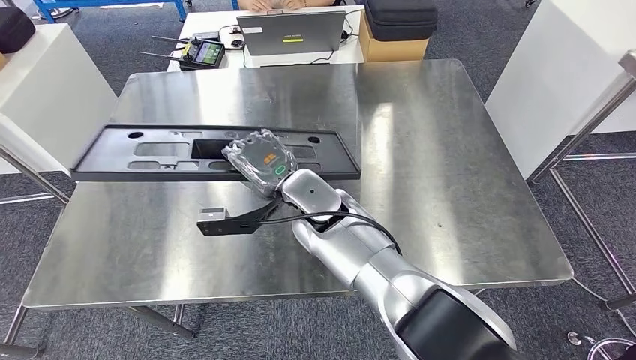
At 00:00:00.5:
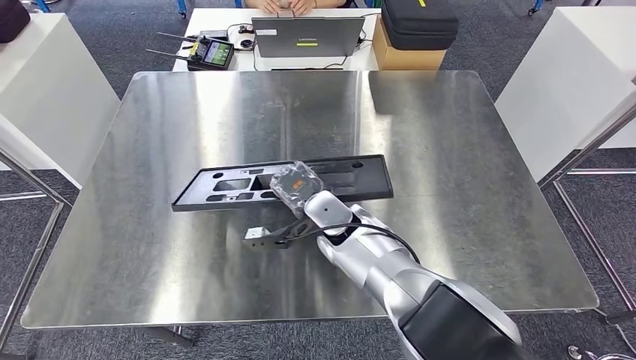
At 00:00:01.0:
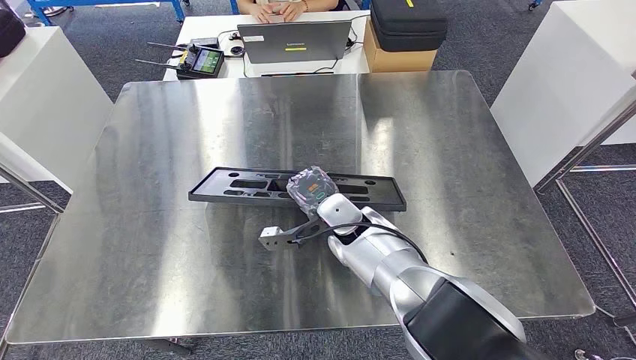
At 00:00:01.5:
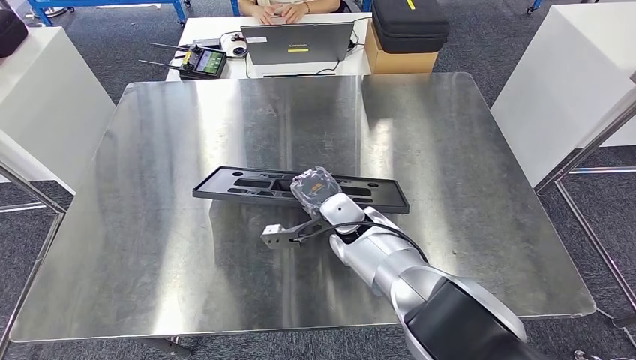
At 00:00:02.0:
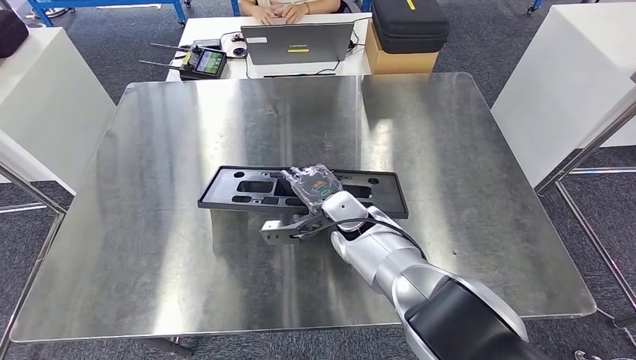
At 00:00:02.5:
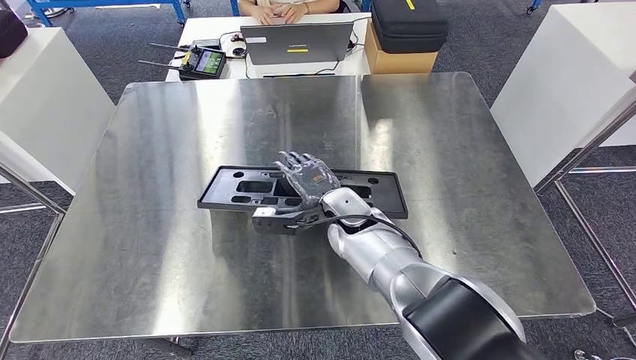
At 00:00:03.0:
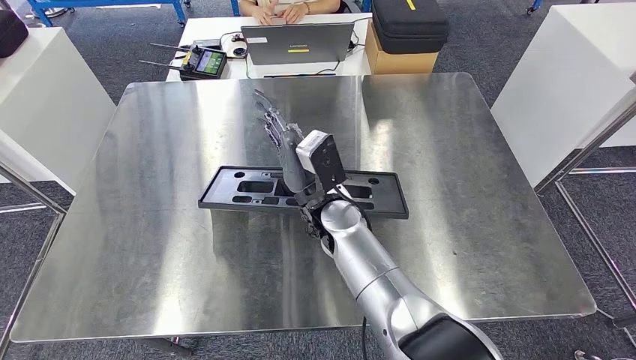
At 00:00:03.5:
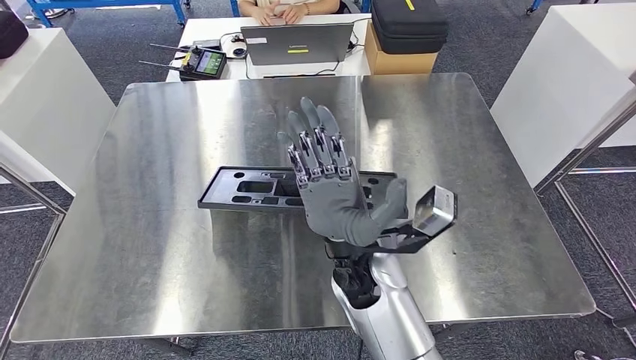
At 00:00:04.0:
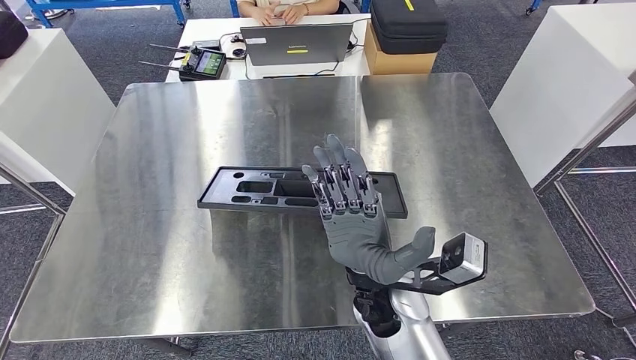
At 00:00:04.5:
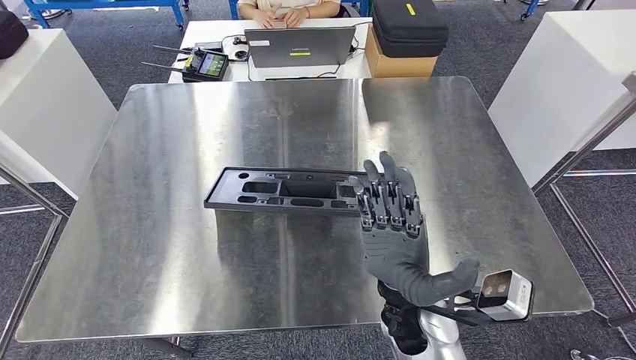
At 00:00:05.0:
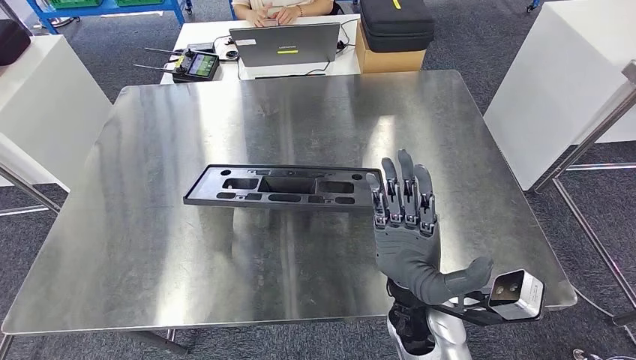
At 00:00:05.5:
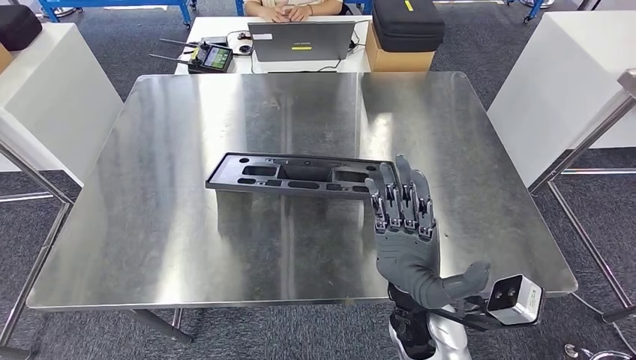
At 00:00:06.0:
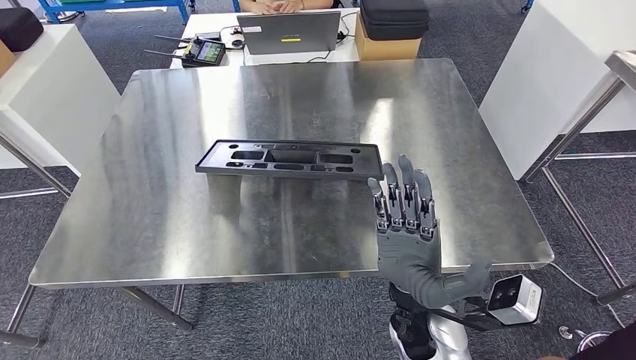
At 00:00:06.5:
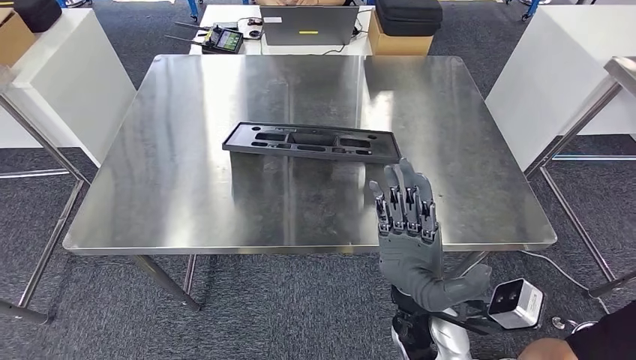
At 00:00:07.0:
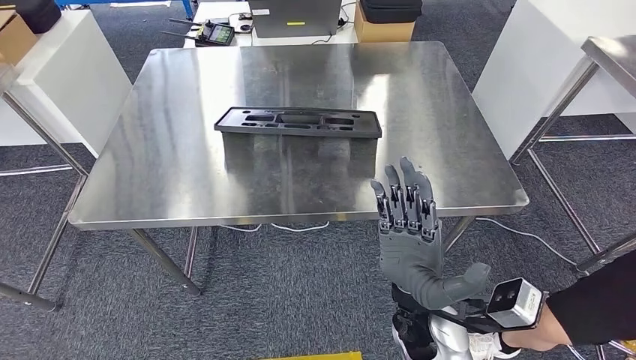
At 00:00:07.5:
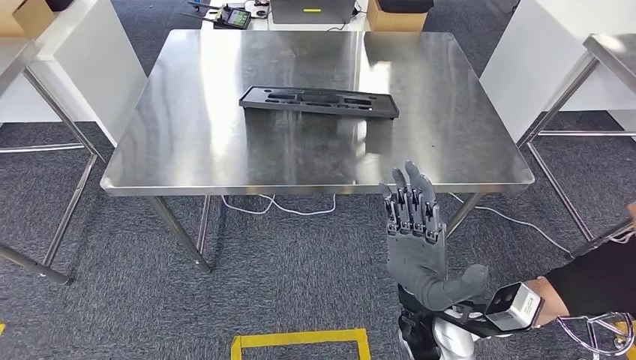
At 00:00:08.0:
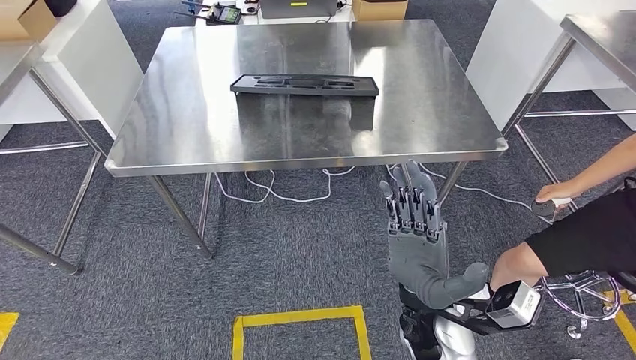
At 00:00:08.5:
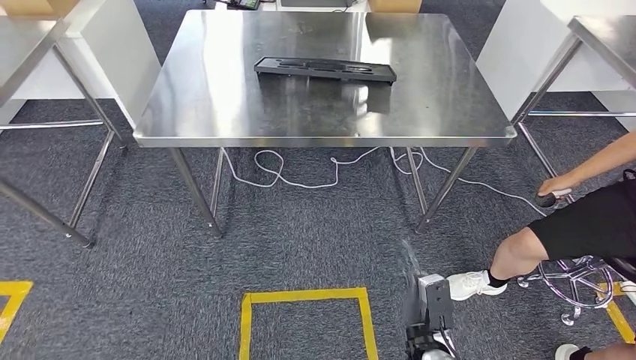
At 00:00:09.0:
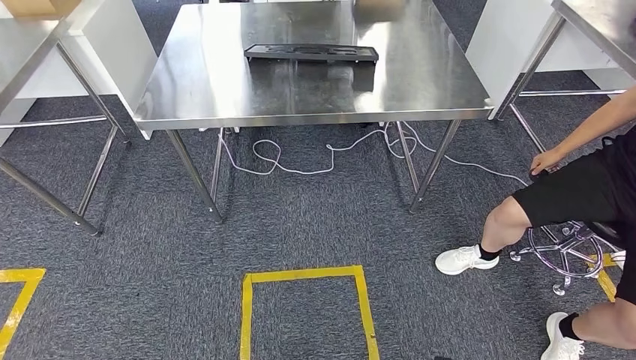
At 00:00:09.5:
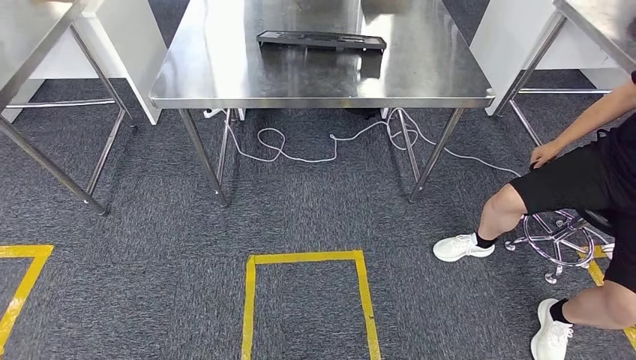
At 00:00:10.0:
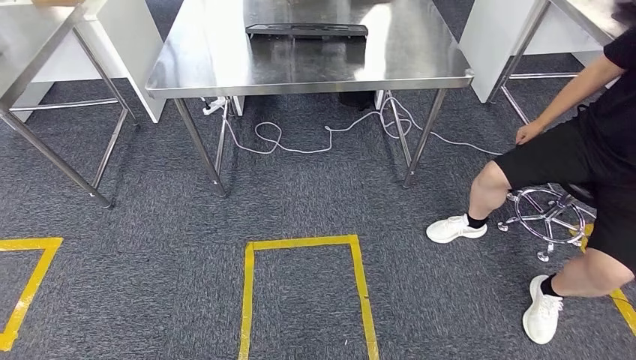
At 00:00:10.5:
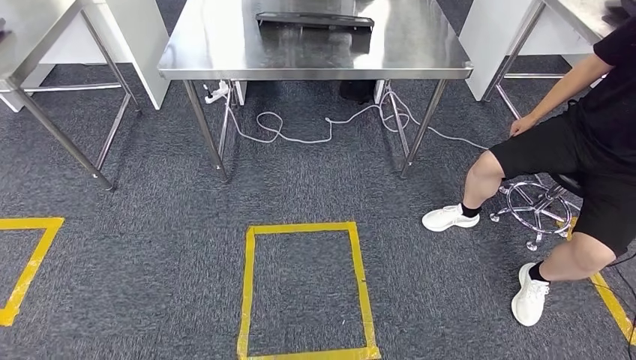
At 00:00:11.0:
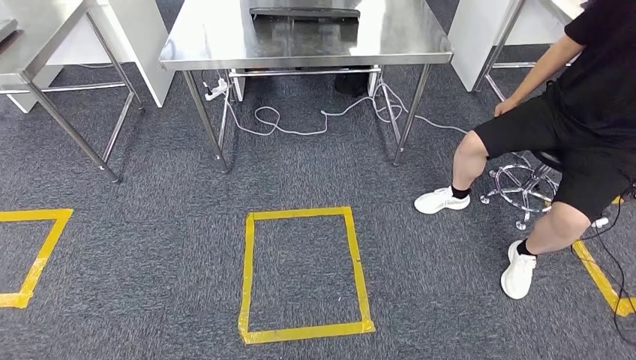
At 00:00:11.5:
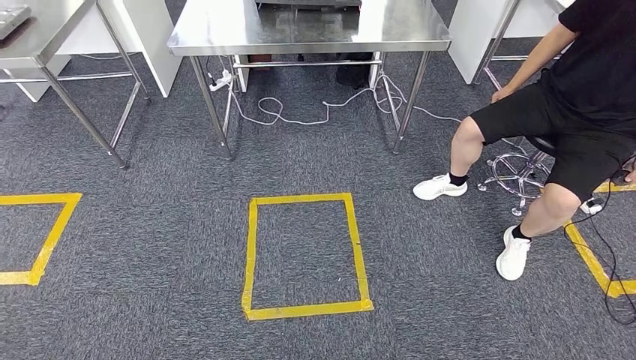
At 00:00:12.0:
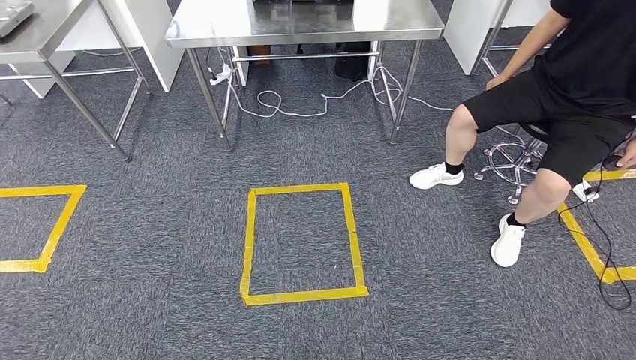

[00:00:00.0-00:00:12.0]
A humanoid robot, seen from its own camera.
Step, 00:00:00.0 to 00:00:10.0: Insert the large material into the corresponding hole on the workbench.
00:00:02.0 to 00:00:04.0: The right hand shifts approximately 15 cm backward.

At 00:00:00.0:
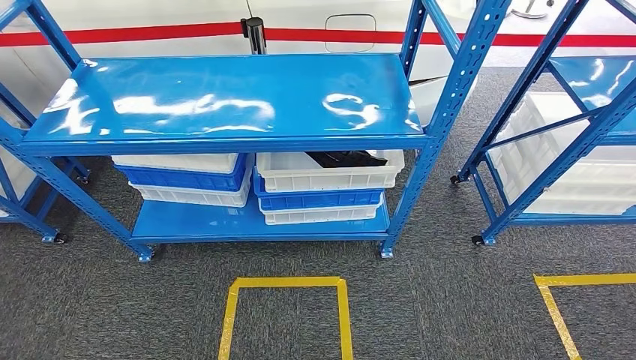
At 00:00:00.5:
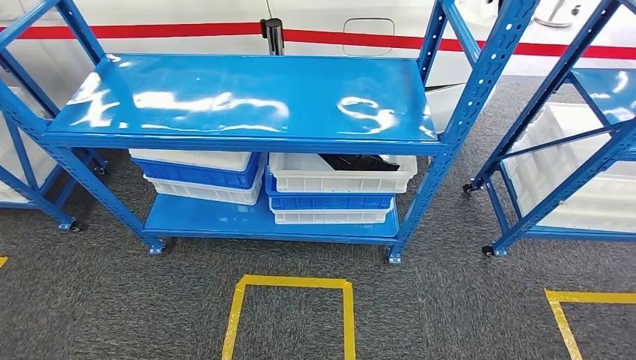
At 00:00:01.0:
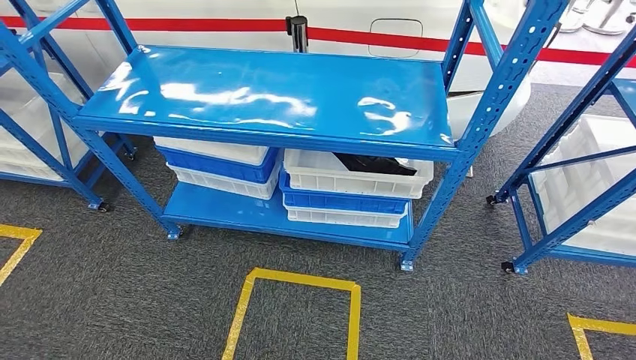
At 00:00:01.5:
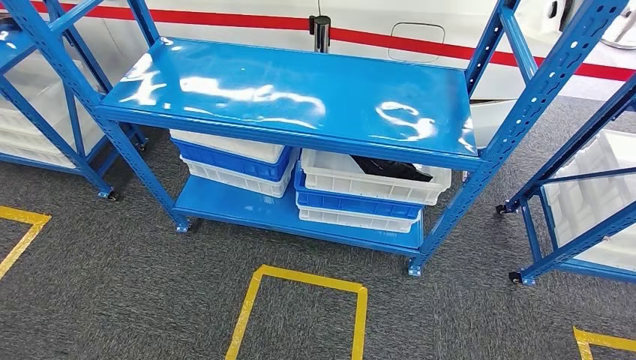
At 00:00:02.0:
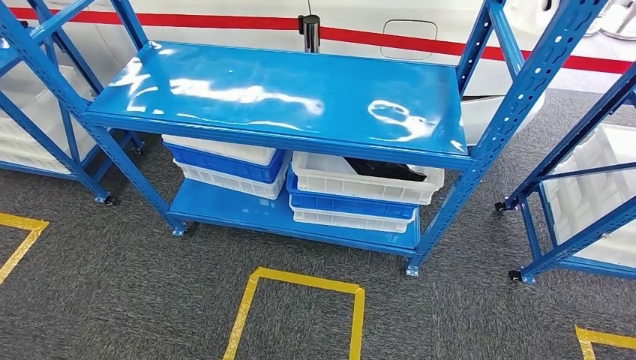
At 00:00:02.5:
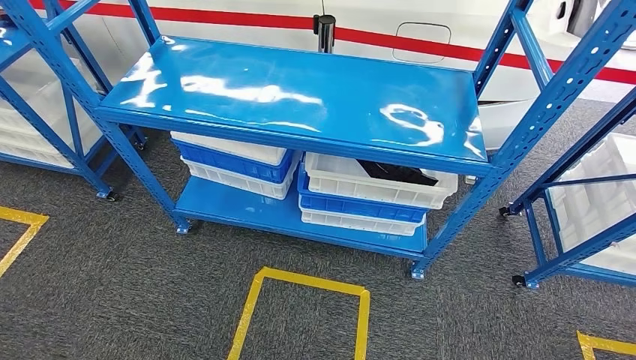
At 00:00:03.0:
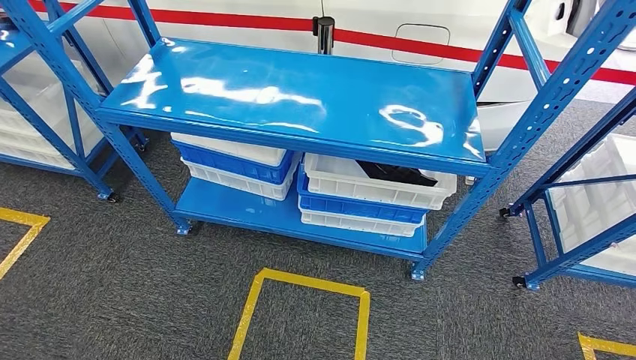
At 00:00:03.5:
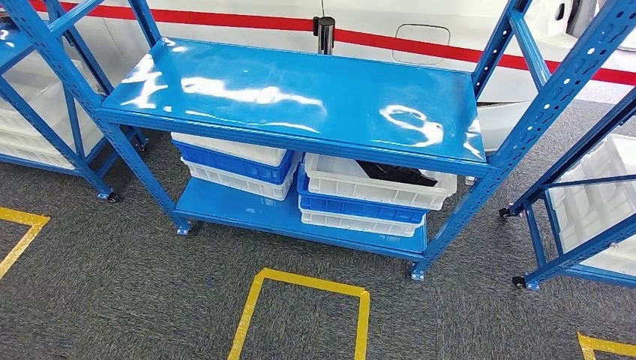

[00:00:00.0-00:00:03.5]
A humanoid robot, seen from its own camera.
Step, 00:00:00.0 to 00:00:03.5: Move to the initial position of the shelf.
